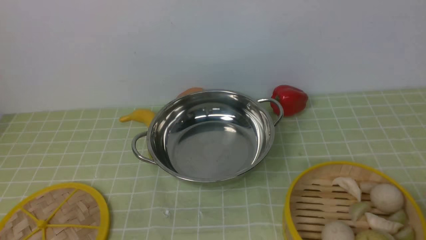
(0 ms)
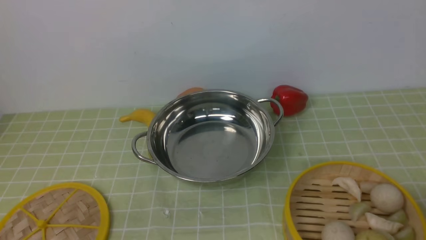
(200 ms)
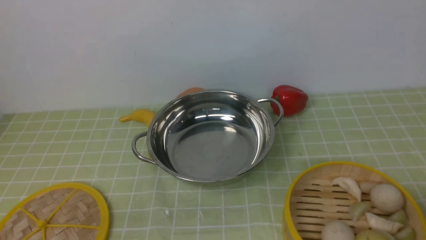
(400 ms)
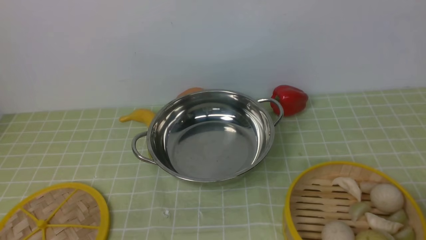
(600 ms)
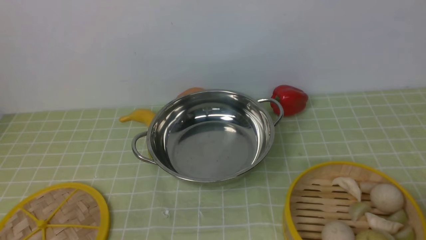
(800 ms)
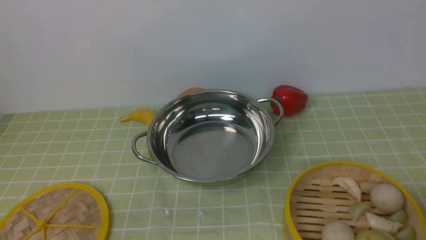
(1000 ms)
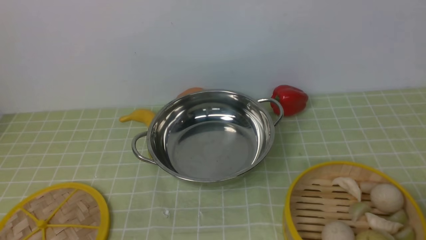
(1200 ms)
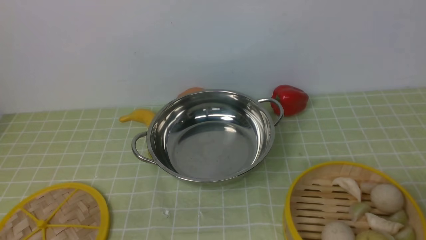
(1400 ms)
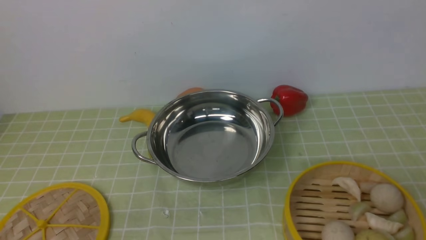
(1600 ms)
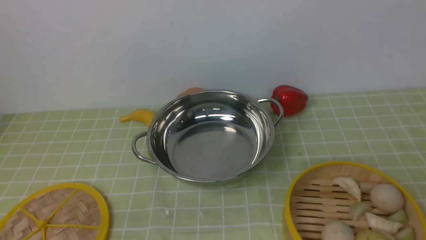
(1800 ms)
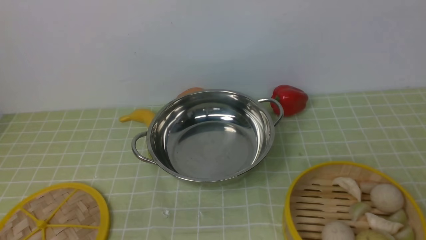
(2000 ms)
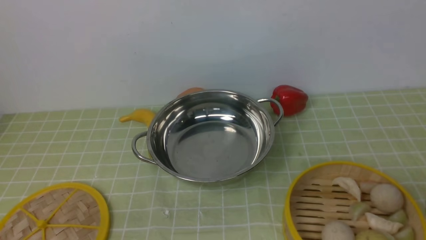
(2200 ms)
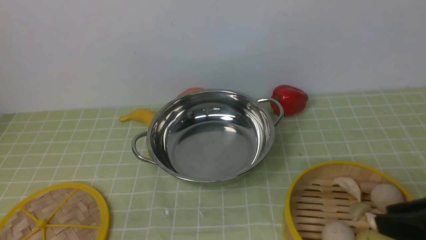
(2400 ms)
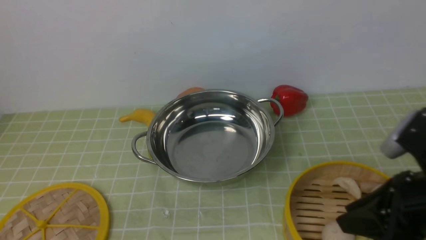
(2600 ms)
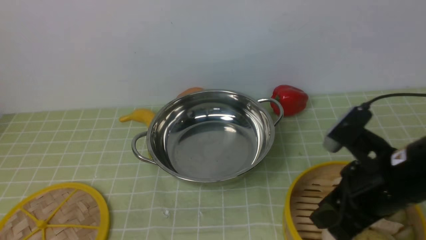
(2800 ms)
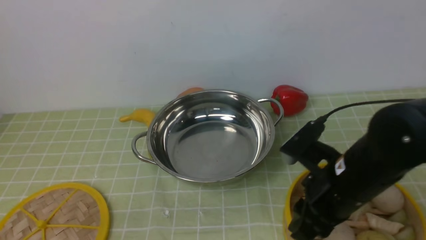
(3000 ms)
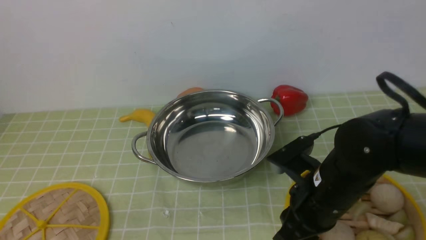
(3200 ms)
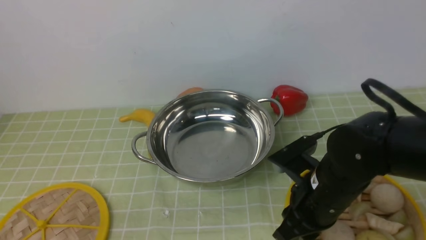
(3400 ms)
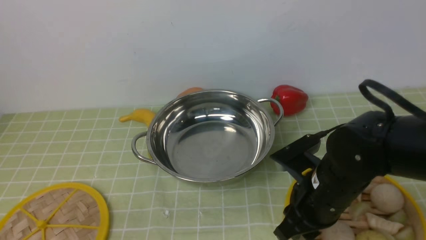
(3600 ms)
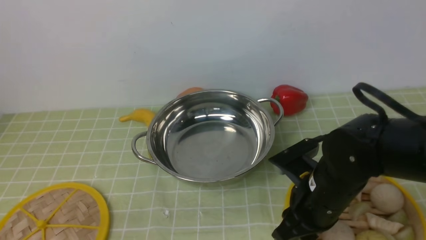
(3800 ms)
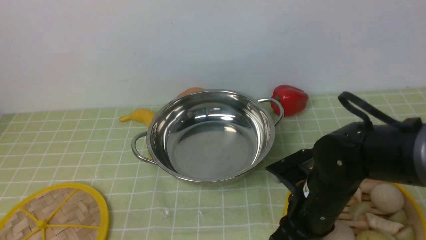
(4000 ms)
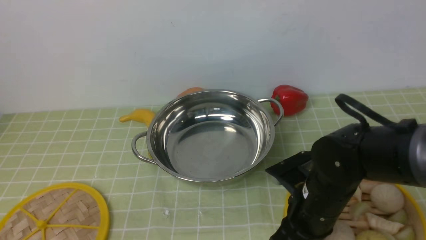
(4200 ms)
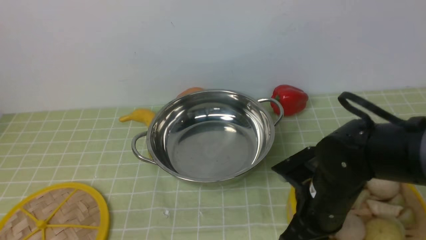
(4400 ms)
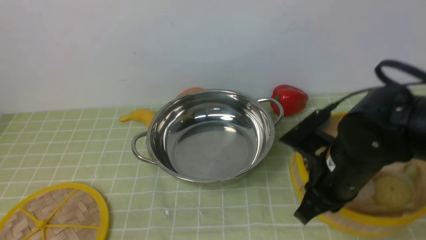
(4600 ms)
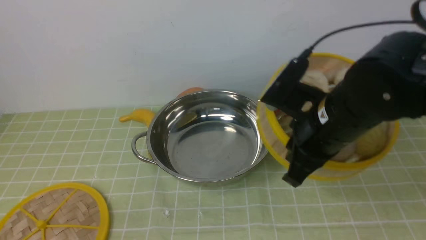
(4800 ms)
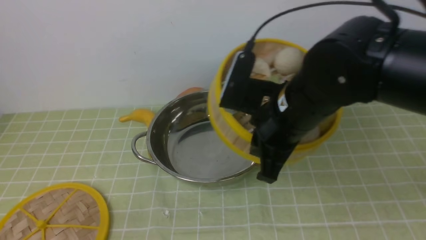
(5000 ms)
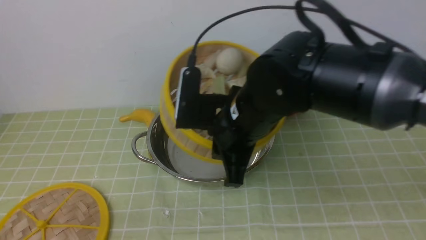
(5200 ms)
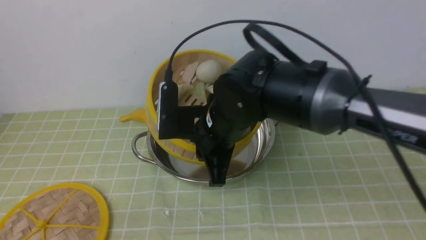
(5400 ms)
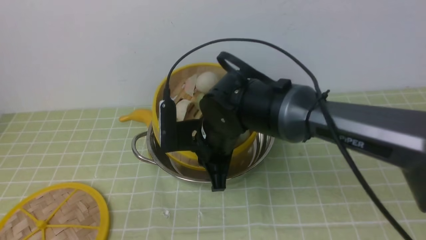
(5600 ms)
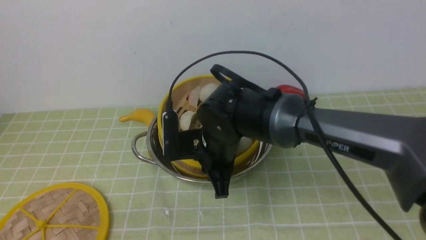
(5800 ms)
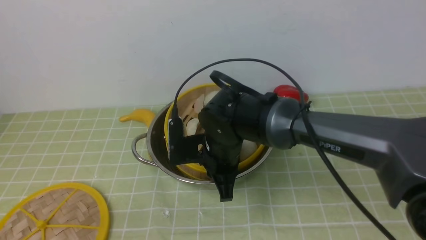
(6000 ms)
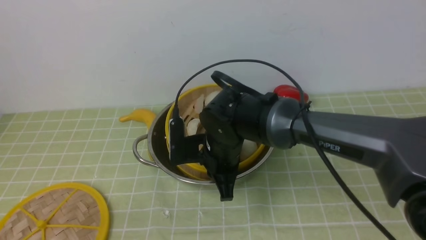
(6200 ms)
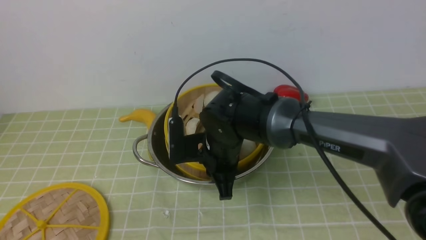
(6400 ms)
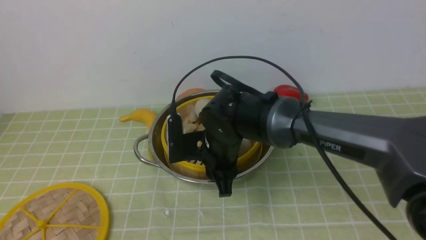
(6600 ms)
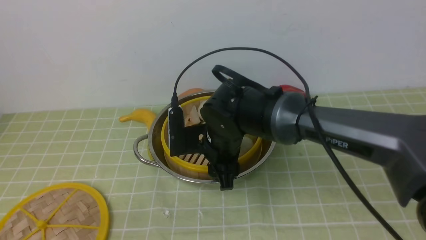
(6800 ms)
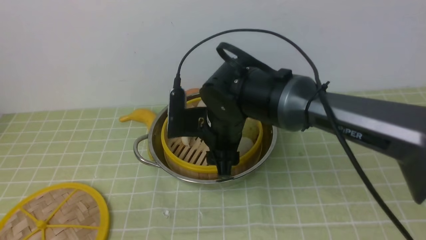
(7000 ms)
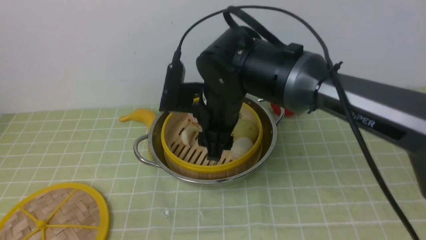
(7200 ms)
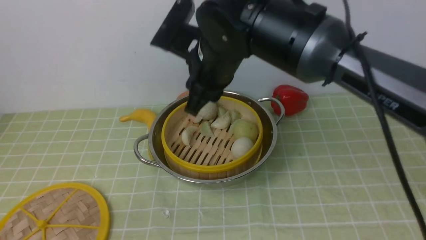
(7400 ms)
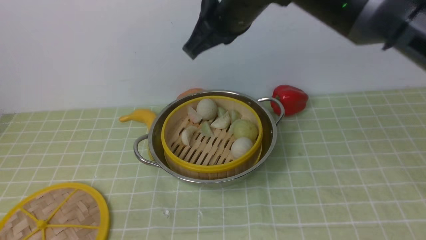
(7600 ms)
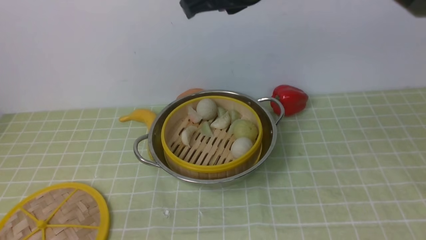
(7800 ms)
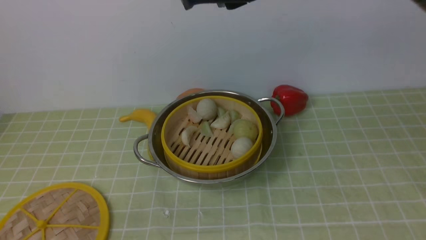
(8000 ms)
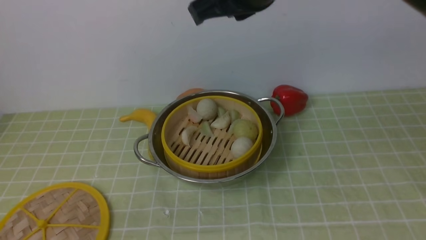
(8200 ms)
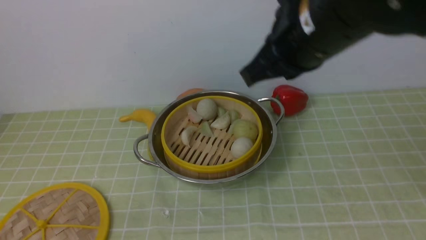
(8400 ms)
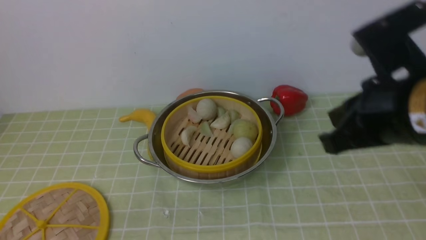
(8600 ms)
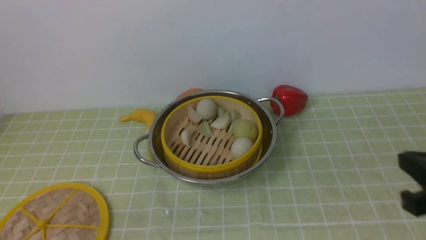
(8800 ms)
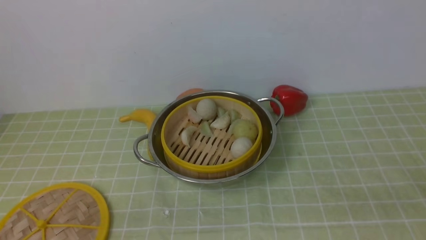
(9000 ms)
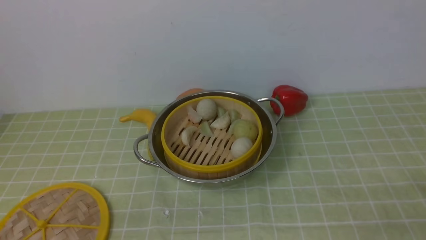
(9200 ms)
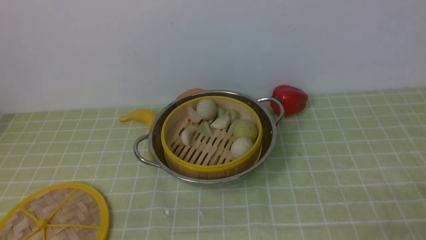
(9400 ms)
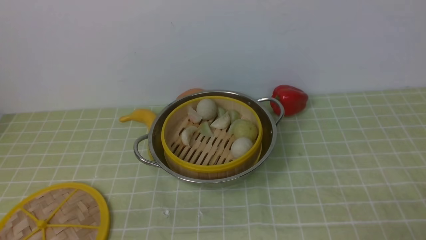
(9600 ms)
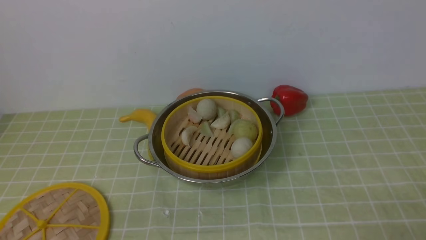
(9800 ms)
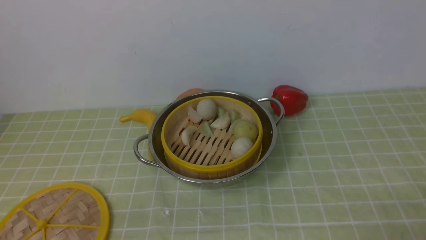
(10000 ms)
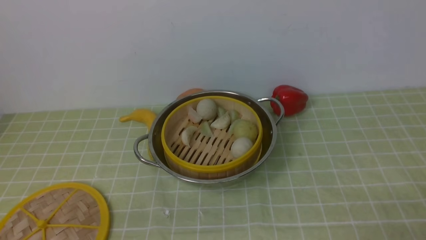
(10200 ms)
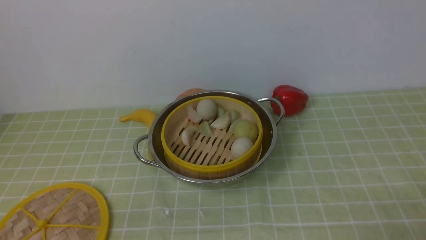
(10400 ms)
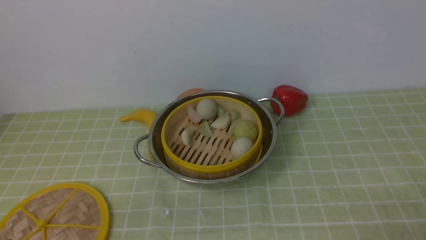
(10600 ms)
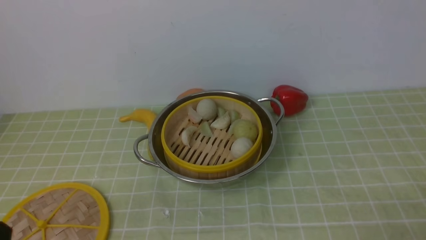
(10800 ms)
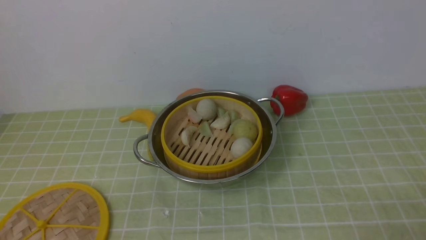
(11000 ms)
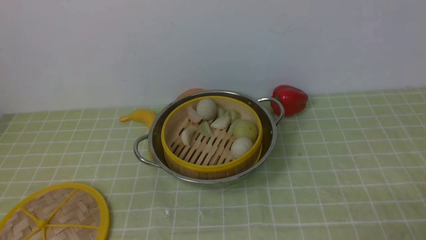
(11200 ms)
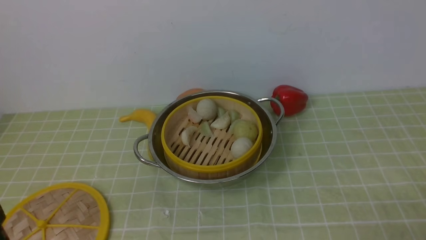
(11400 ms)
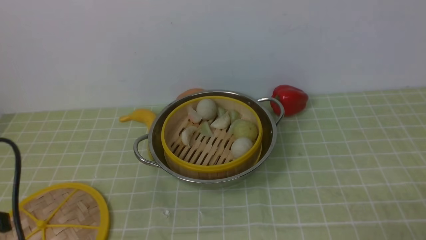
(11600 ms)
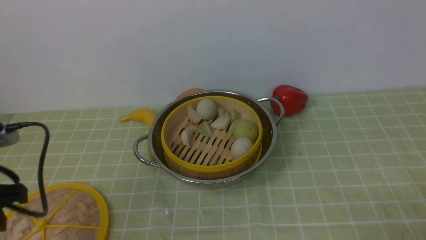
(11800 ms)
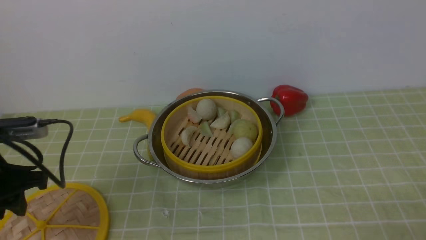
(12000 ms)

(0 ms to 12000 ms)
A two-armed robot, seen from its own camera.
Task of the whole recording: place the steamer in the pot on the green tablecloth, and put the lid on the steamer.
Step, 0 ms - 4400 ms: use the right arm to lift the steamer closest to it.
Step, 4800 ms - 7800 ms: use the right arm to put the steamer into the iron steamer pot in the middle.
1600 ms - 3000 ms: The right gripper is displaced forward and to the left by approximately 20 cm.
3000 ms - 4400 ms: The right gripper moves downward, about 5 cm.
4400 ms - 6000 ms: The right gripper is displaced to the left and forward by roughly 15 cm.
6000 ms - 7600 ms: The right gripper heads upward, covering some 20 cm, and opens, then closes once more.
7600 ms - 9000 ms: The right gripper heads to the right and backward, covering about 35 cm.
10400 ms - 12000 ms: The left gripper goes roughly 20 cm forward and upward.

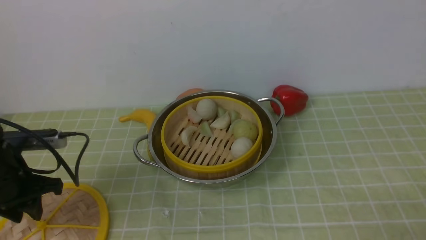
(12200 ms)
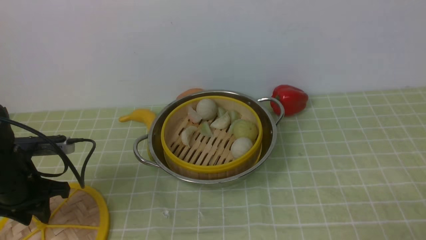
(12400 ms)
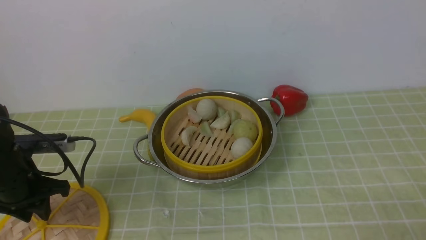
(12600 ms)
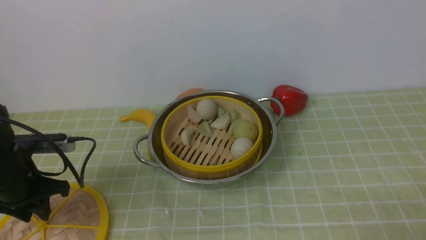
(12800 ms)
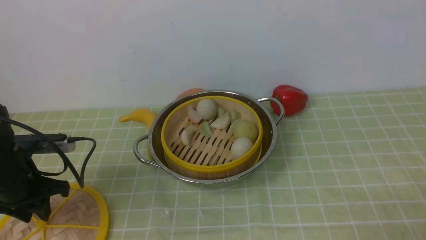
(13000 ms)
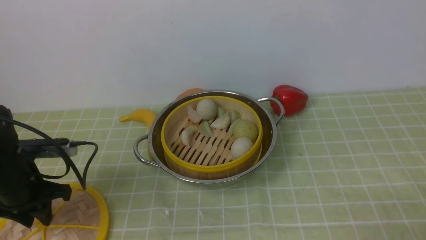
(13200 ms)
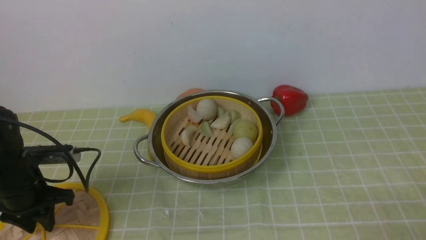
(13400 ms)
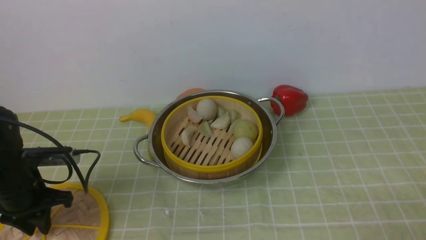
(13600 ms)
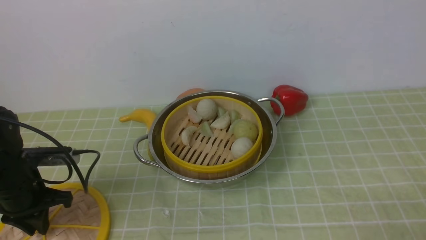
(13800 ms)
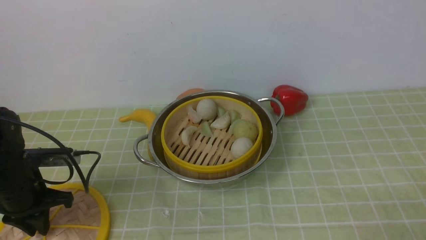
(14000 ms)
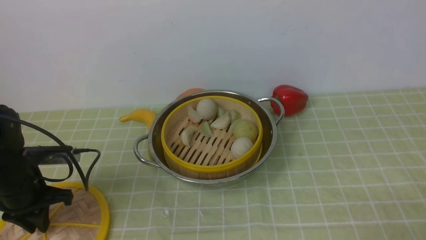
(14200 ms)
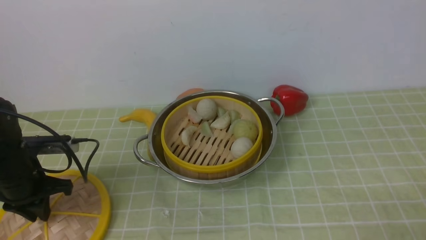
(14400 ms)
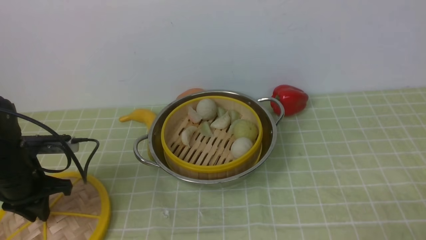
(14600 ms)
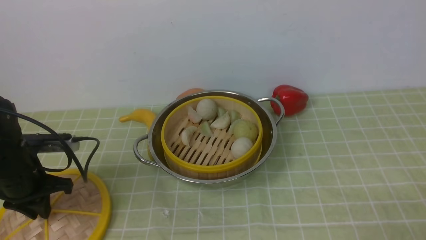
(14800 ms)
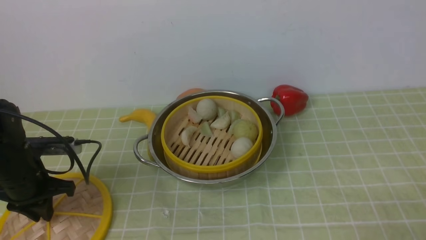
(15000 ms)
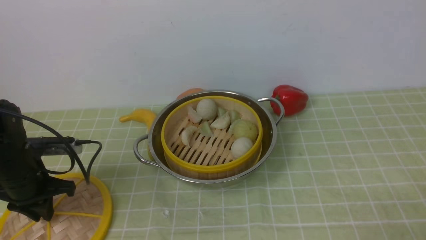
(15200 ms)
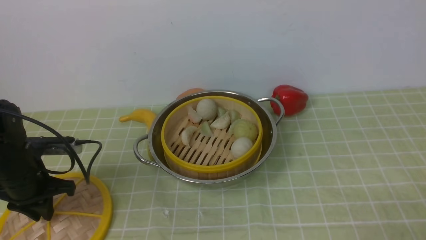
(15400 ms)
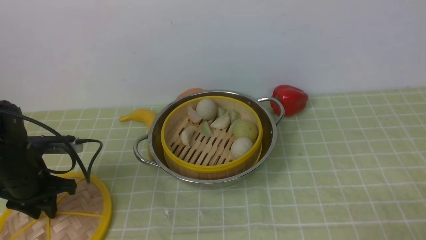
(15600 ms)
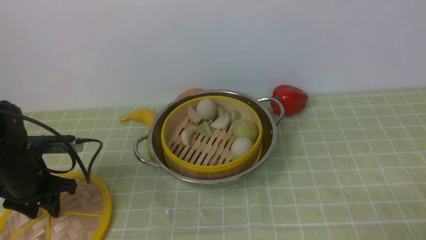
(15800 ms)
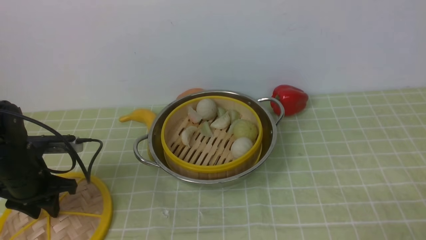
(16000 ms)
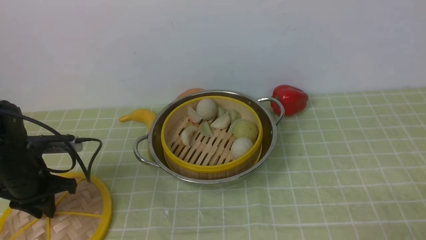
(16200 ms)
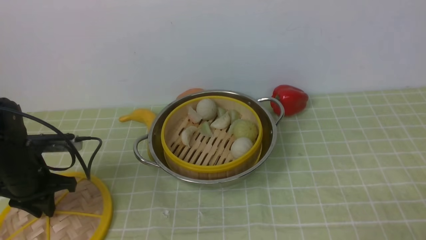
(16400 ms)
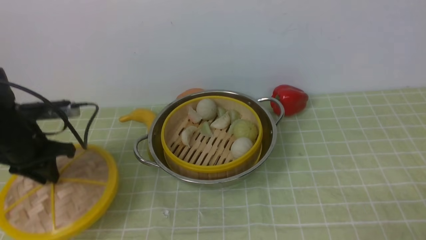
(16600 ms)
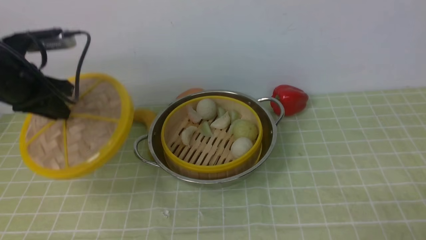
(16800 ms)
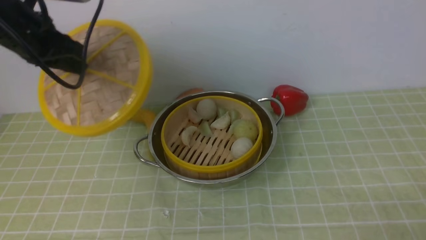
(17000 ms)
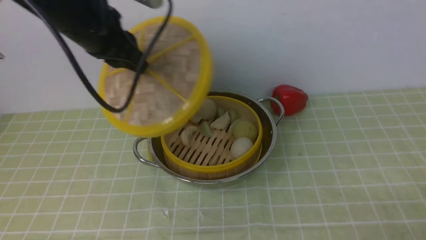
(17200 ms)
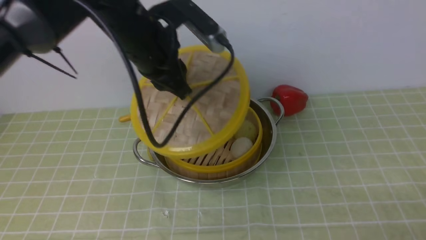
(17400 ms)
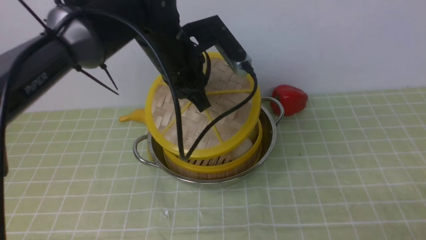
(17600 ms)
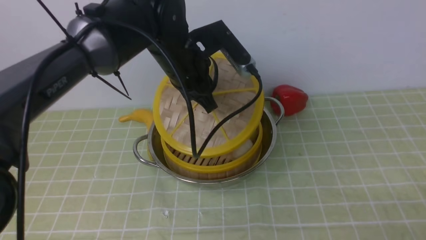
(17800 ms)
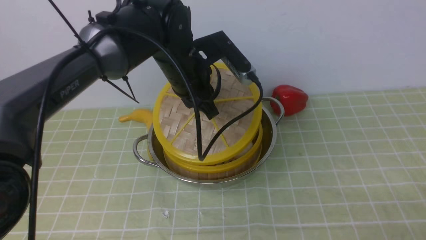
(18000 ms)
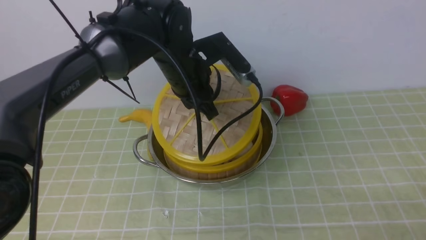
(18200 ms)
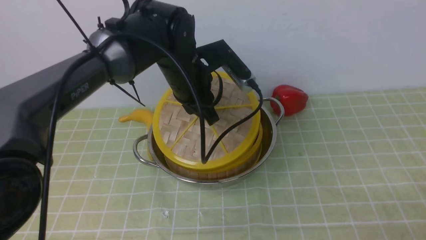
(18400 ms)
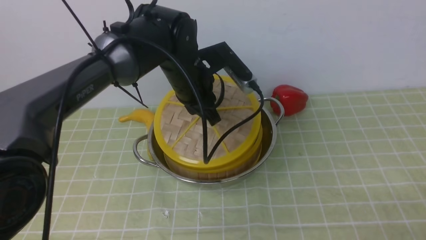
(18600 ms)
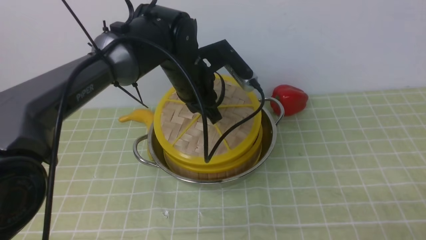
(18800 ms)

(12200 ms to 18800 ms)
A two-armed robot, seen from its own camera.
Task of the whole recording: place the steamer in the pot on the green tablecloth, and put the lid on the steamer.
Step, 12200 ms - 16800 ms: use the left arm to lift the lid of the steamer.
12200 ms - 13800 ms: The left gripper shifts roughly 5 cm downward.
13800 ms - 15400 ms: The grippers move only a little.
15400 ms - 17200 ms: The left gripper shifts roughly 20 cm upward and to the right, and opens, then closes again.
17200 ms - 18800 ms: The left gripper moves to the right and downward, some 20 cm.
